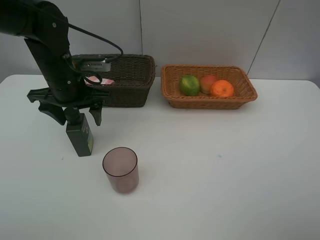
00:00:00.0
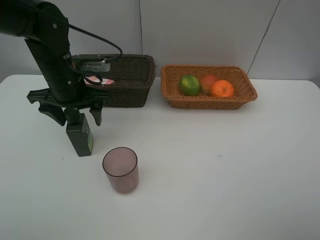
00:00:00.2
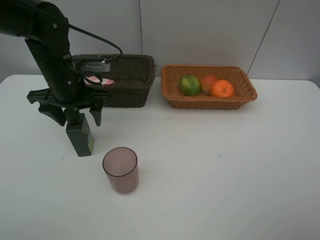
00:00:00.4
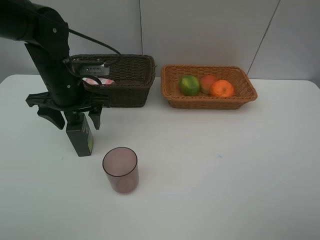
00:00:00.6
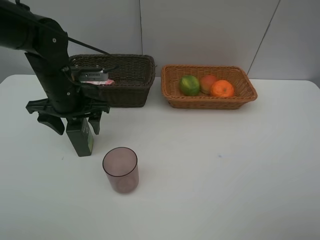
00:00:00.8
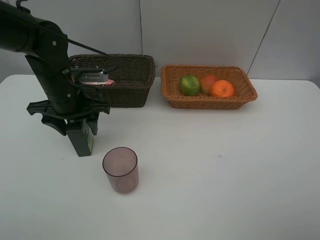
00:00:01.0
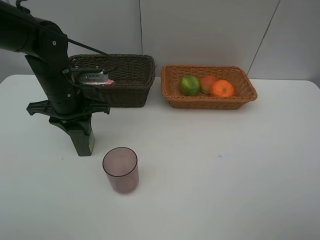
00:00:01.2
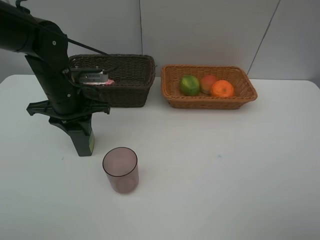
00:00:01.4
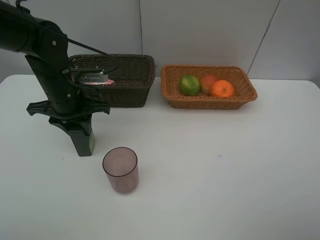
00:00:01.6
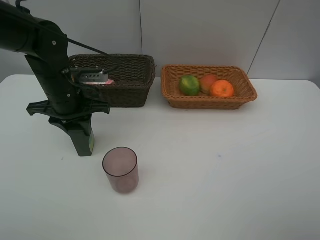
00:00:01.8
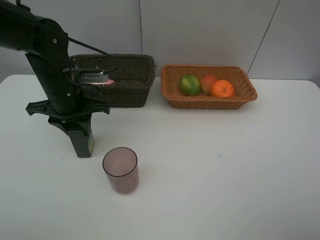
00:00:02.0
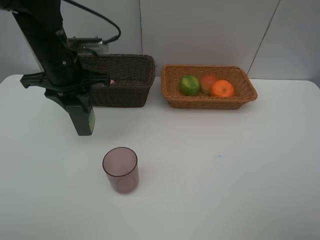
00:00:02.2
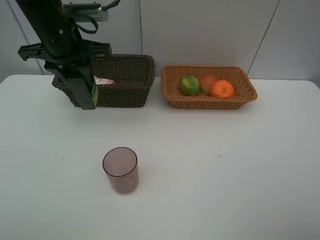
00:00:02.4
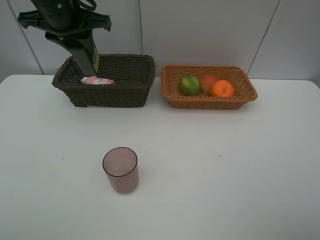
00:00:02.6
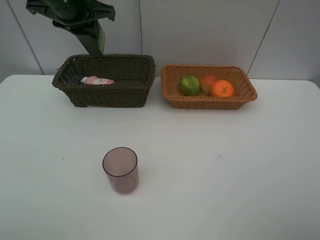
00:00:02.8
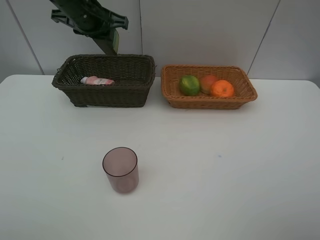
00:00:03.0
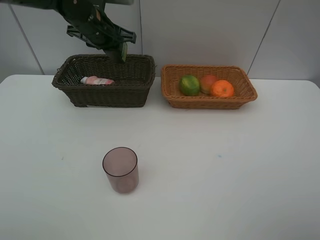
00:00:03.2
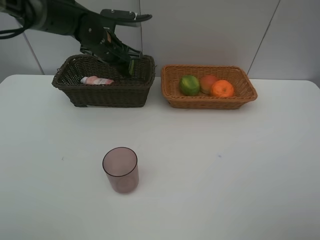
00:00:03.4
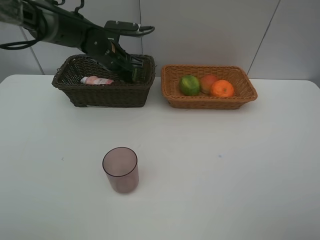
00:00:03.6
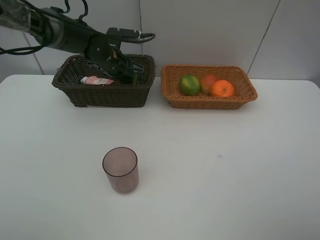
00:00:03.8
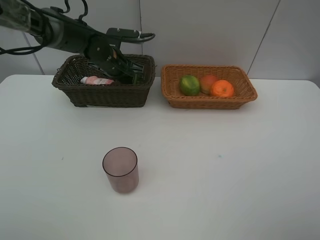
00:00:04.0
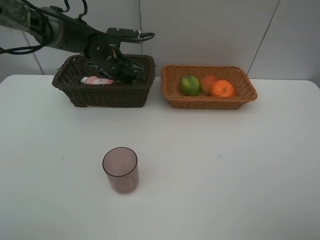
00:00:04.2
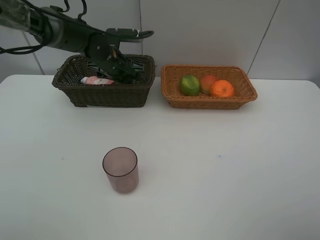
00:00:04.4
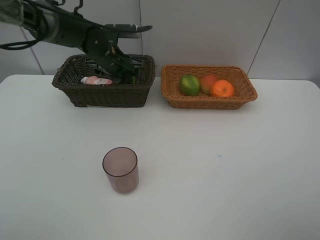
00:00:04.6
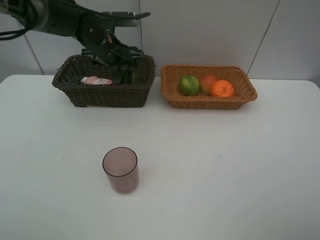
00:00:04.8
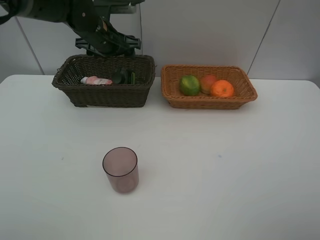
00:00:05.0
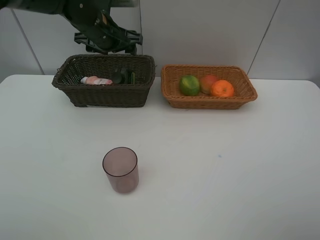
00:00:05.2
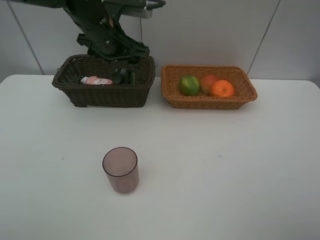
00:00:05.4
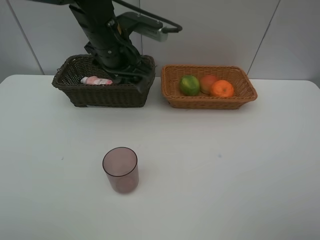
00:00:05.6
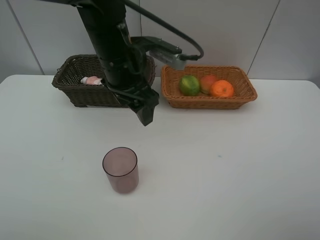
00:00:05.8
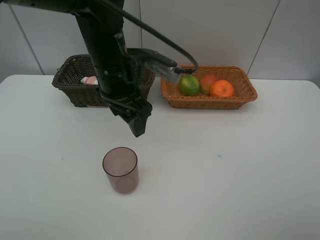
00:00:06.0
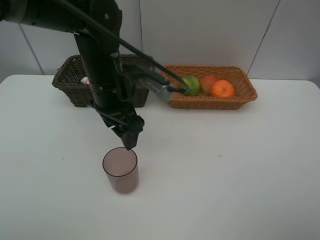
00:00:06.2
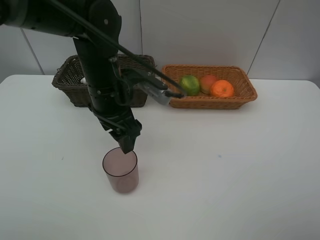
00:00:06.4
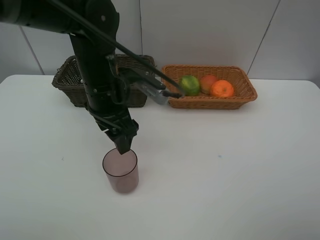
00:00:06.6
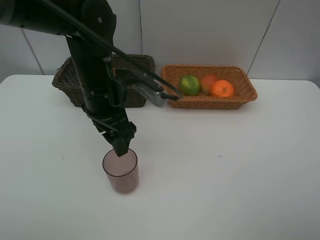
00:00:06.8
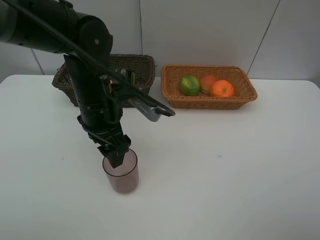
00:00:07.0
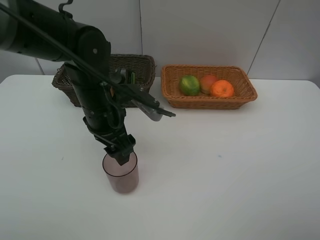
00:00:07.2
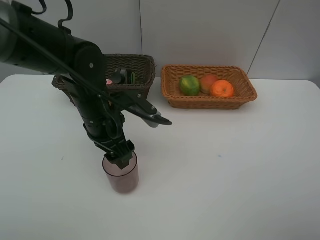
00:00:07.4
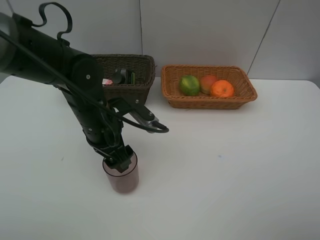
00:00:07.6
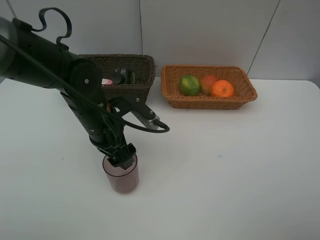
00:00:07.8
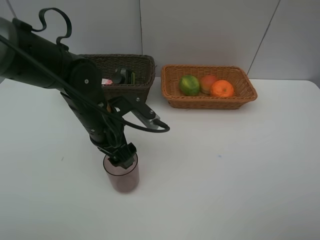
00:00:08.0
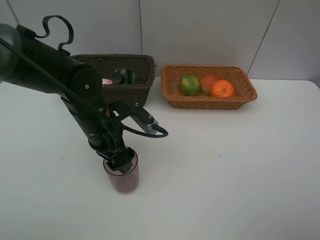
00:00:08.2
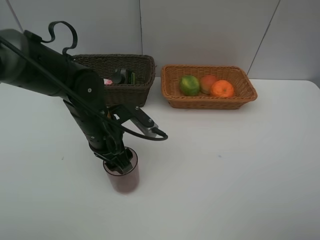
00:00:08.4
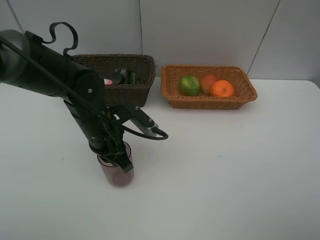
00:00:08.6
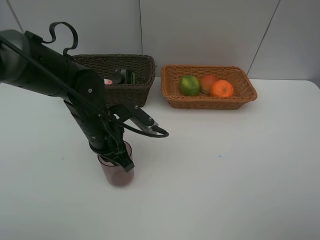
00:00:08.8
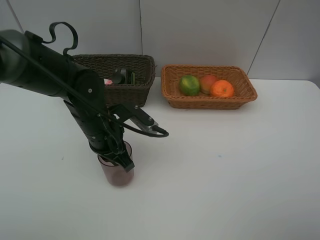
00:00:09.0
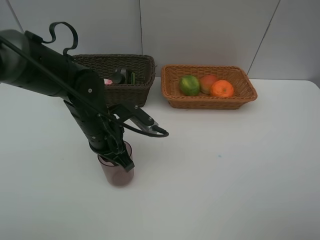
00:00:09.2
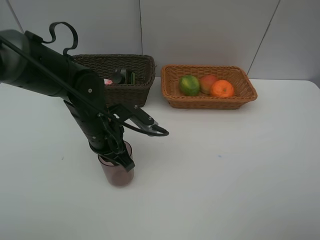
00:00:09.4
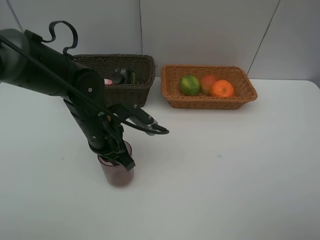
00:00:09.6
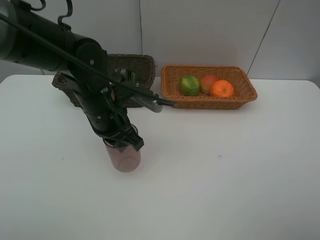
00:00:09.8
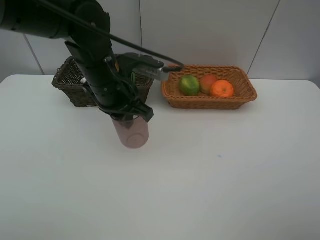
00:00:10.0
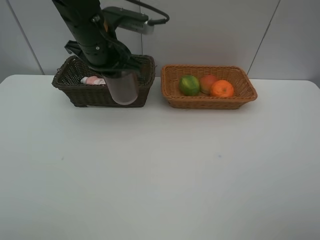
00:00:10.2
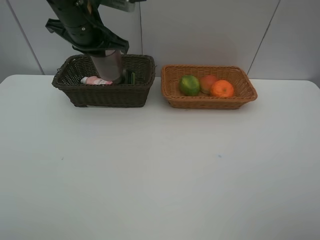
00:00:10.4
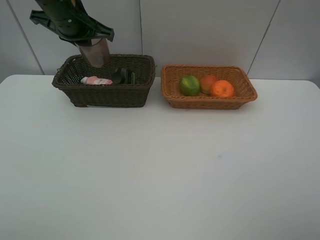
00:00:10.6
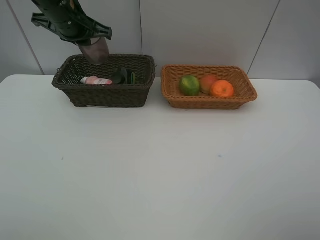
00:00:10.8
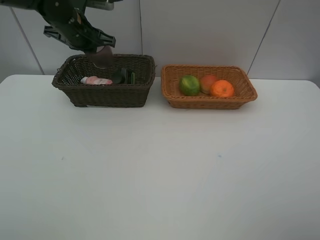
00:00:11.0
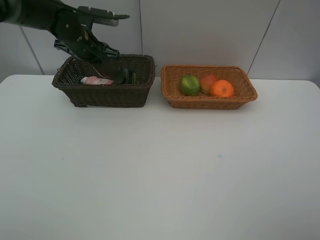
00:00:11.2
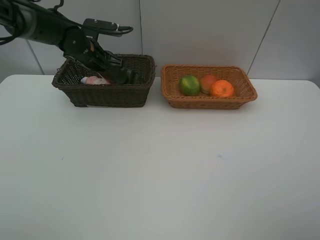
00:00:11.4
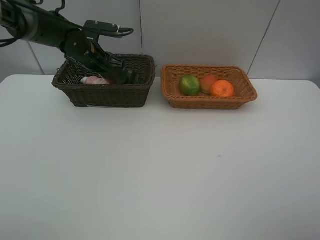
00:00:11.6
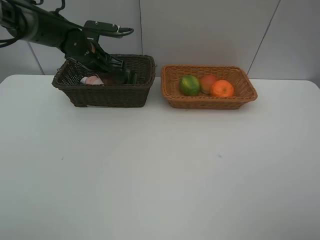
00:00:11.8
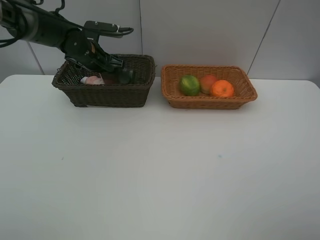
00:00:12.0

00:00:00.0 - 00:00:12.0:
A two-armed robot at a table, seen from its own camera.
Task of the whole recording: place multiple objects separately in different baskets.
00:00:00.0 - 00:00:01.6: The left gripper closes up.
00:00:01.6 - 00:00:03.0: The left gripper heads upward and forward, covering some 15 cm.
00:00:03.0 - 00:00:04.4: The left gripper heads downward, covering about 10 cm, and opens.
00:00:04.4 - 00:00:06.0: The left gripper goes approximately 15 cm backward and upward.
00:00:06.0 - 00:00:07.6: The left gripper goes roughly 10 cm downward.
00:00:07.6 - 00:00:09.0: The left gripper closes.
00:00:09.0 - 00:00:10.4: The left gripper travels upward and forward by about 20 cm.
00:00:10.4 - 00:00:12.0: The left gripper moves downward and forward, roughly 15 cm, and opens.

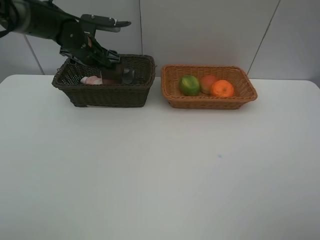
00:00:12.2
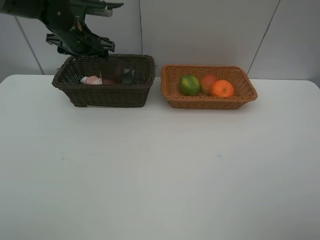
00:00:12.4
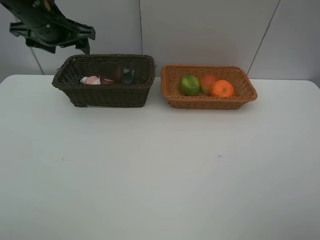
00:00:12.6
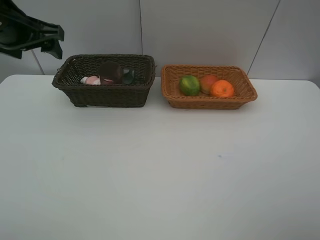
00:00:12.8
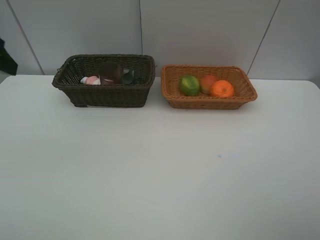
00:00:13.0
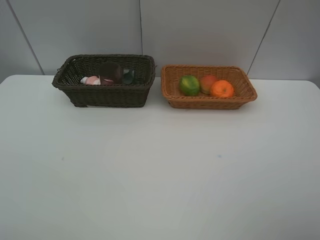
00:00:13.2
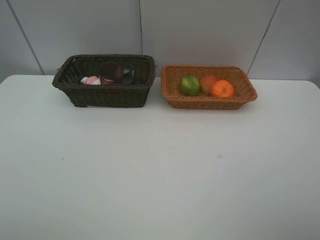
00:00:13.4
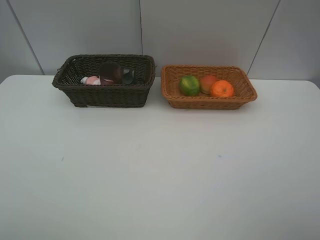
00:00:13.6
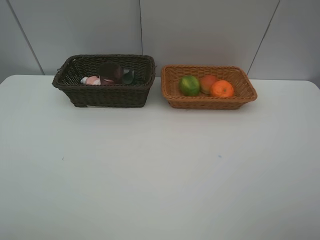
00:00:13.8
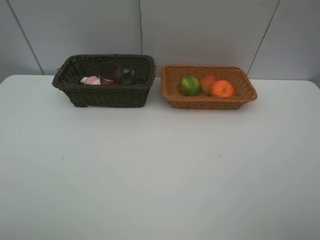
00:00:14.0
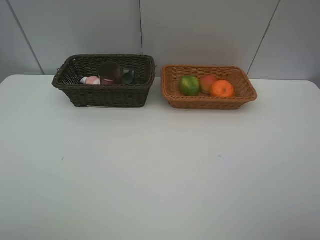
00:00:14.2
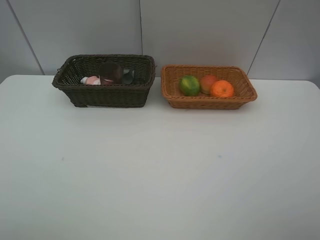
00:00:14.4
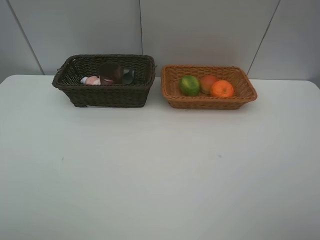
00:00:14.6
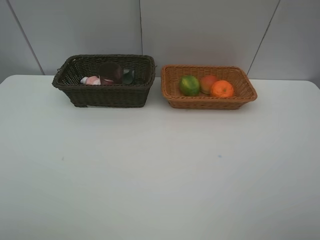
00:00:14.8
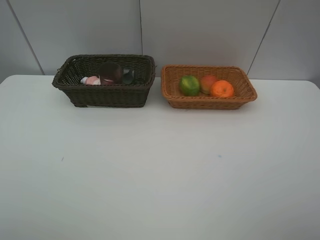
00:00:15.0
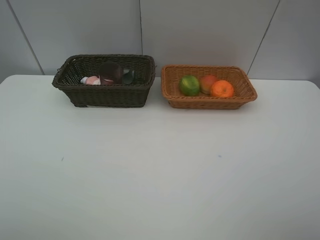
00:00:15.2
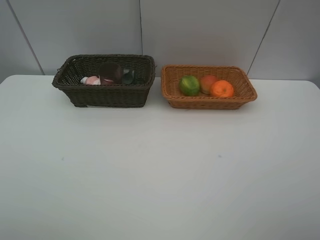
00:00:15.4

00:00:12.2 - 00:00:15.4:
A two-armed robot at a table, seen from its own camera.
Task of the whole recording: place multiple objects separately in different baskets.
00:00:12.2 - 00:00:13.8: The left gripper moves backward, roughly 50 cm.
